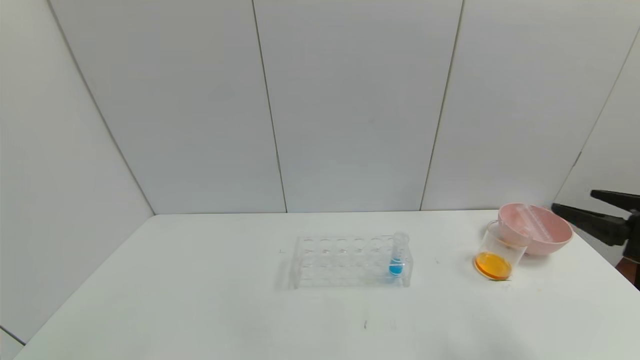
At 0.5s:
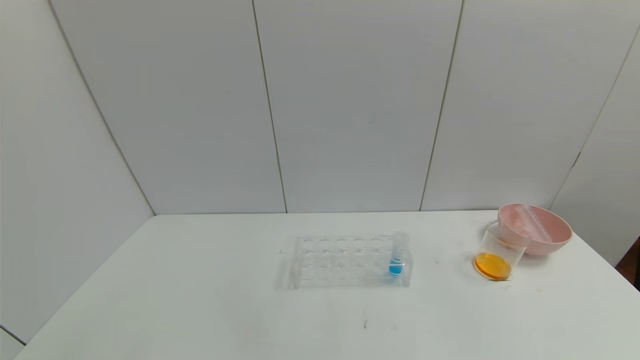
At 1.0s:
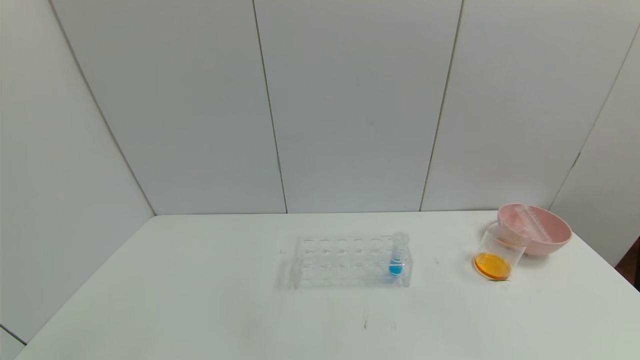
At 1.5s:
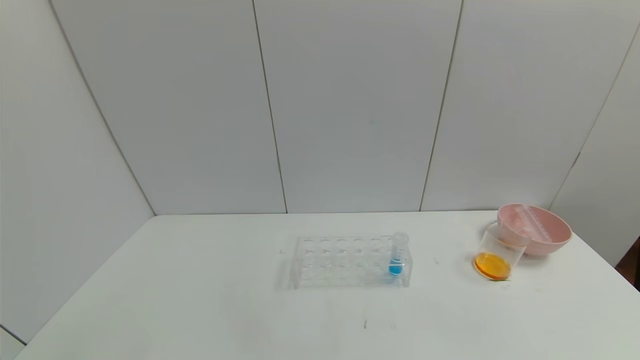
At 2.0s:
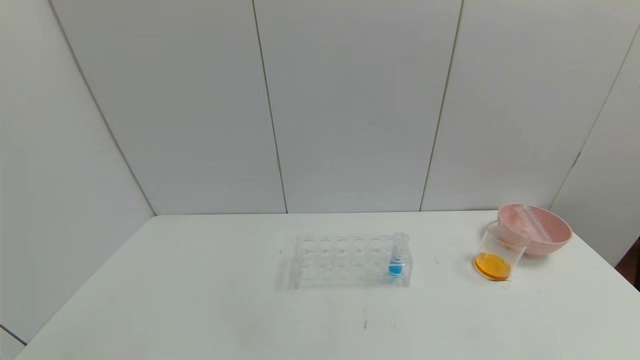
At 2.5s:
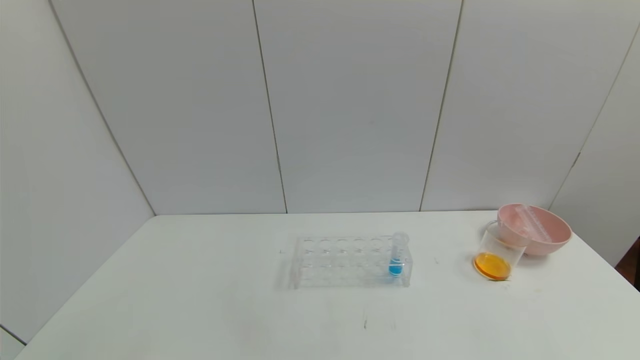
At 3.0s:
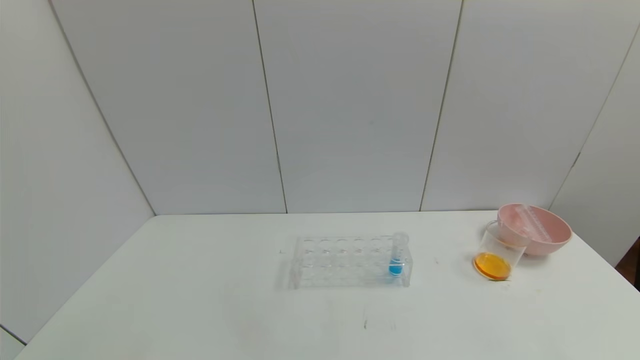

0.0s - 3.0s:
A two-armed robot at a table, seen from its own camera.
Task of the whole recording: pick up the test tube with yellow pigment and the test tube with red pigment by grippers and pour them into the beaker.
0.0s - 1.5s: The right gripper goes roughly 25 cm backward.
